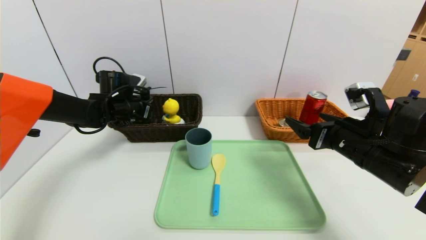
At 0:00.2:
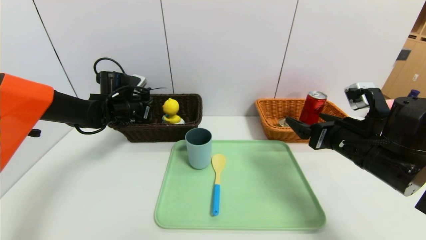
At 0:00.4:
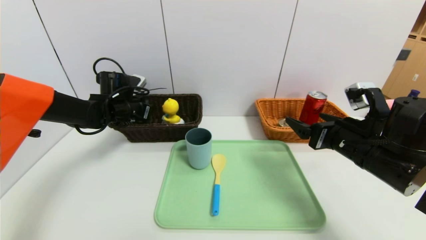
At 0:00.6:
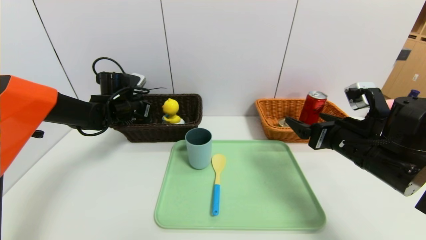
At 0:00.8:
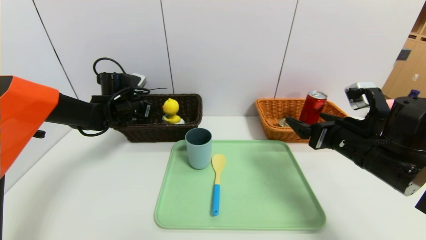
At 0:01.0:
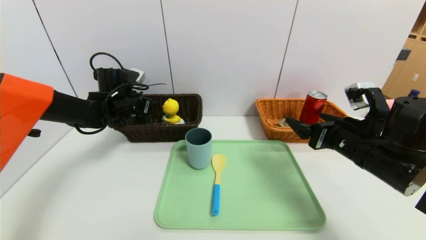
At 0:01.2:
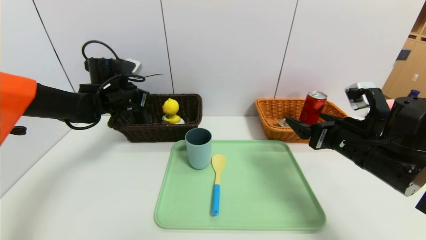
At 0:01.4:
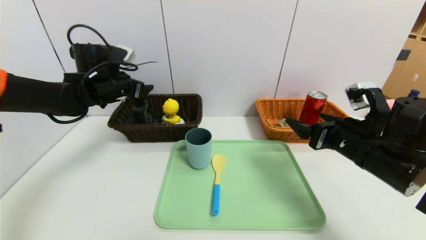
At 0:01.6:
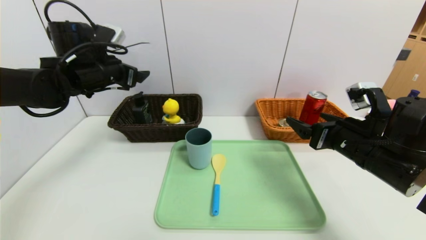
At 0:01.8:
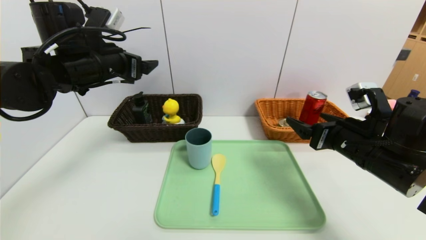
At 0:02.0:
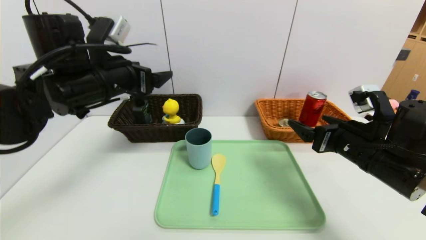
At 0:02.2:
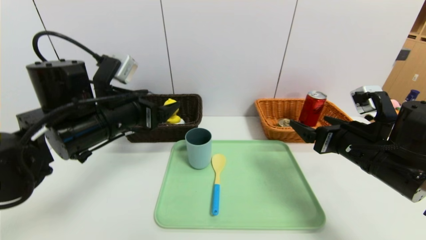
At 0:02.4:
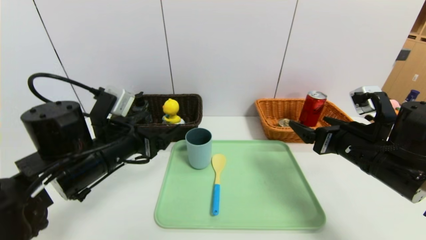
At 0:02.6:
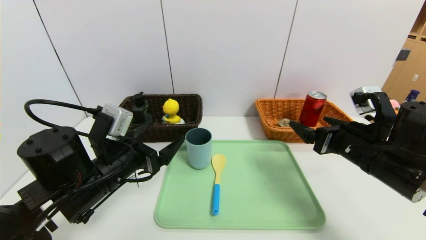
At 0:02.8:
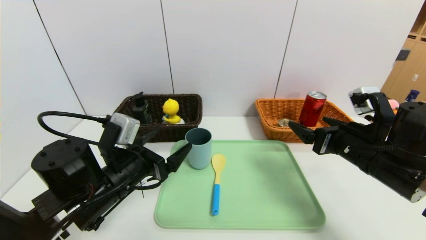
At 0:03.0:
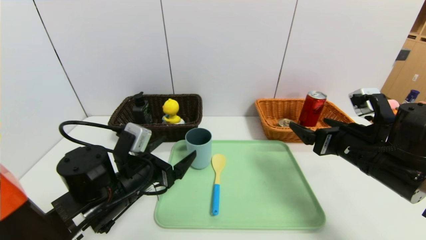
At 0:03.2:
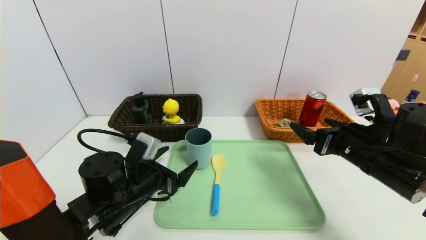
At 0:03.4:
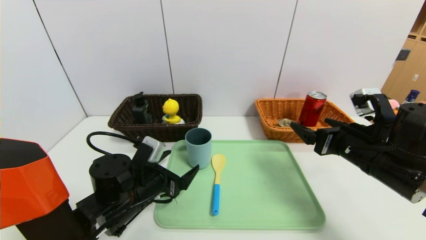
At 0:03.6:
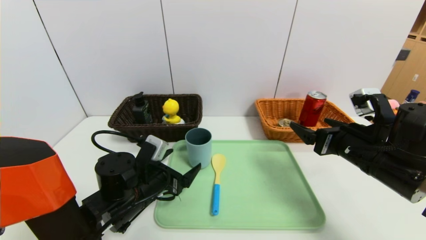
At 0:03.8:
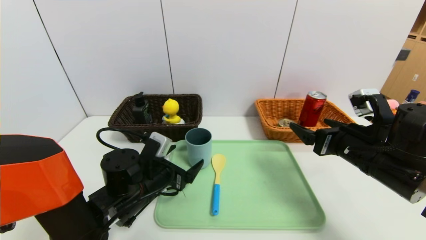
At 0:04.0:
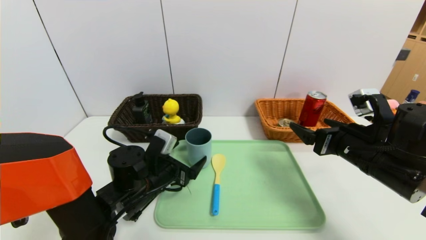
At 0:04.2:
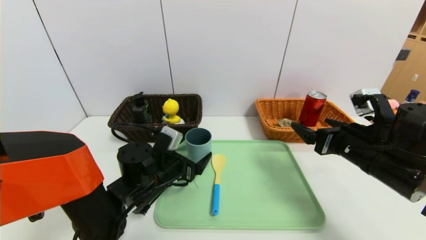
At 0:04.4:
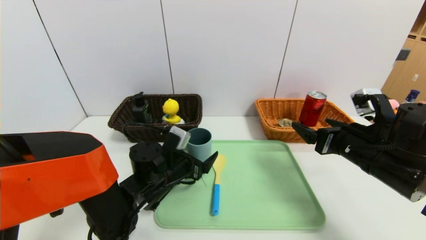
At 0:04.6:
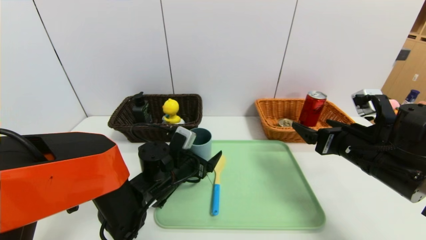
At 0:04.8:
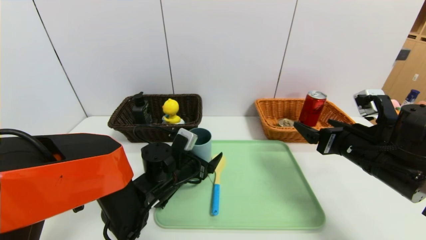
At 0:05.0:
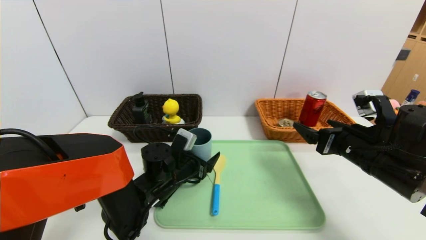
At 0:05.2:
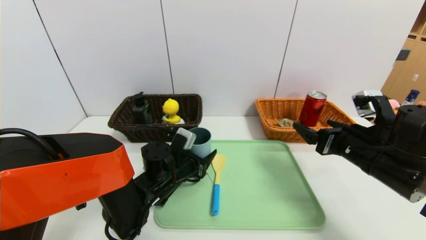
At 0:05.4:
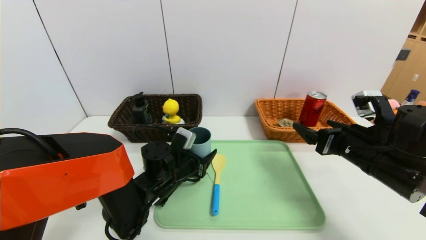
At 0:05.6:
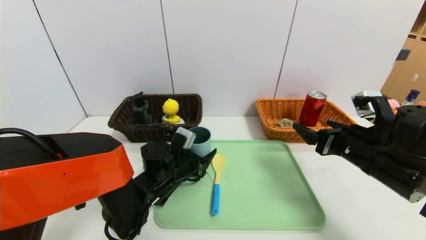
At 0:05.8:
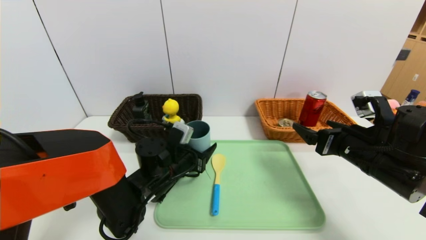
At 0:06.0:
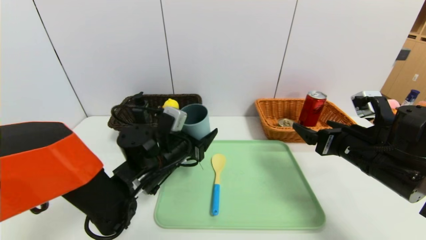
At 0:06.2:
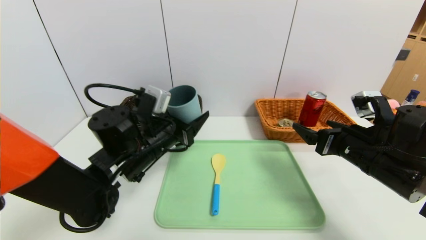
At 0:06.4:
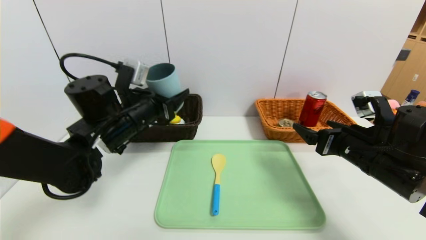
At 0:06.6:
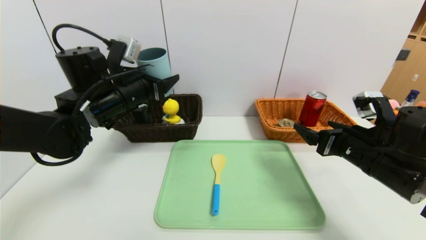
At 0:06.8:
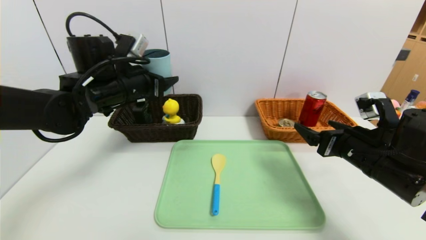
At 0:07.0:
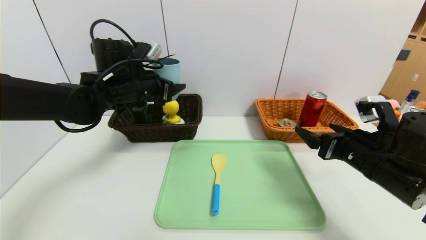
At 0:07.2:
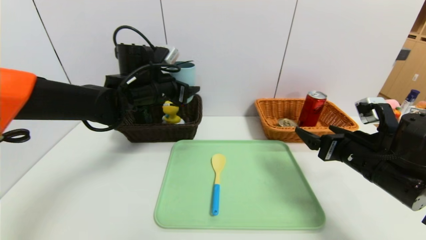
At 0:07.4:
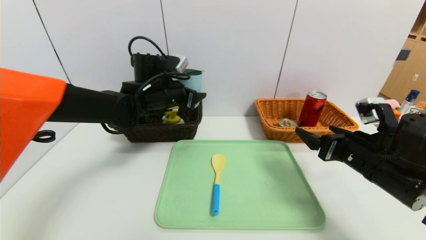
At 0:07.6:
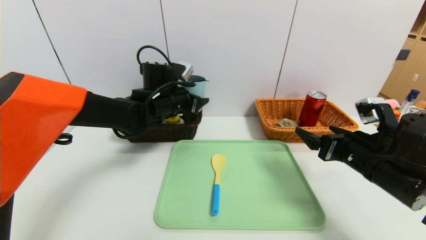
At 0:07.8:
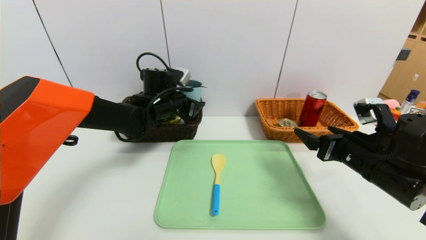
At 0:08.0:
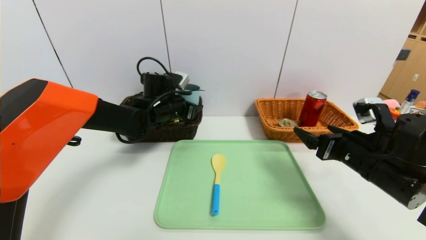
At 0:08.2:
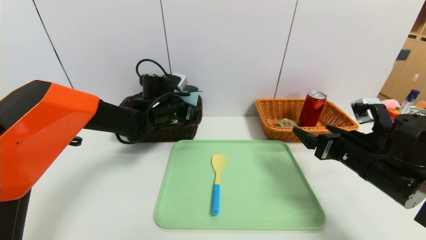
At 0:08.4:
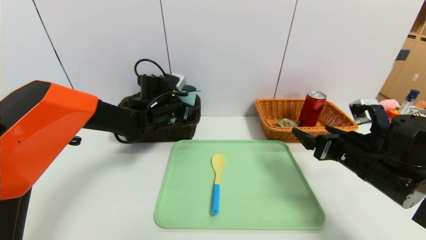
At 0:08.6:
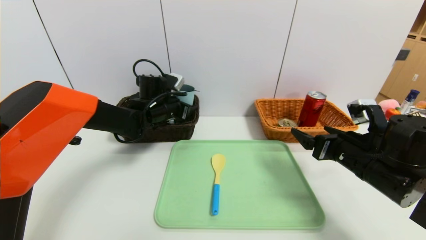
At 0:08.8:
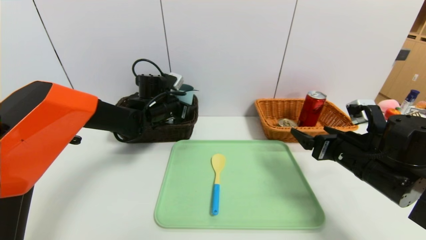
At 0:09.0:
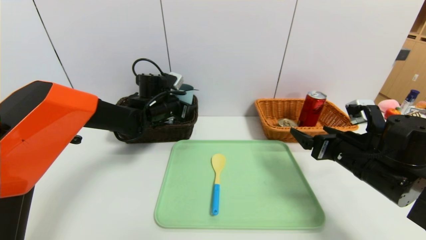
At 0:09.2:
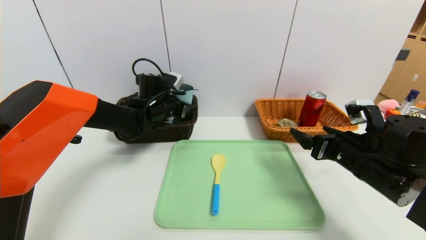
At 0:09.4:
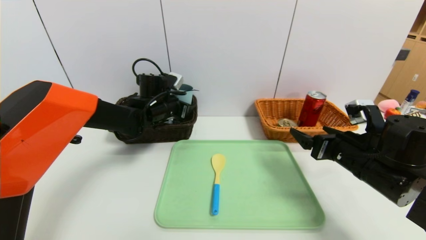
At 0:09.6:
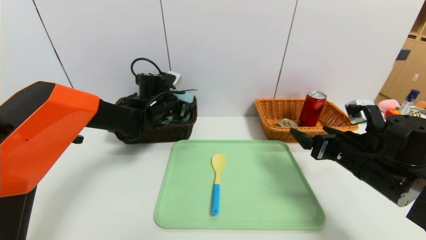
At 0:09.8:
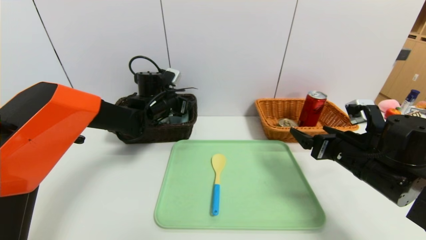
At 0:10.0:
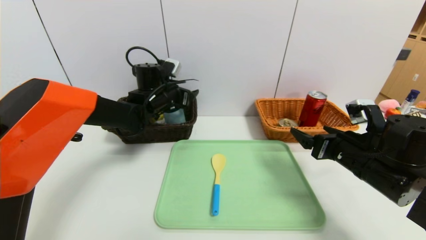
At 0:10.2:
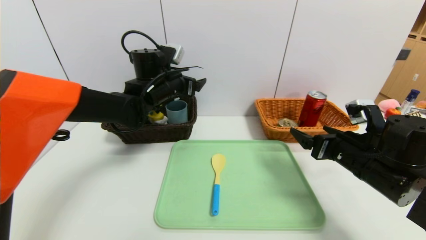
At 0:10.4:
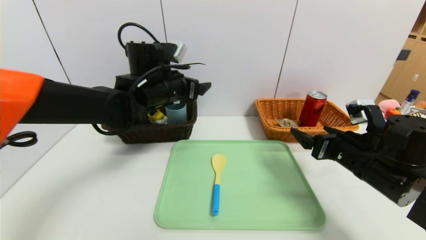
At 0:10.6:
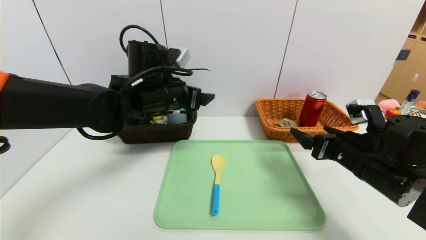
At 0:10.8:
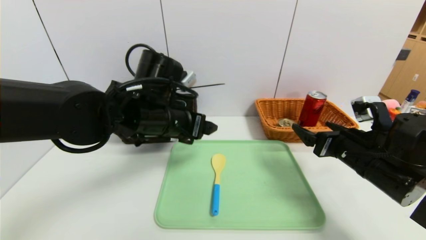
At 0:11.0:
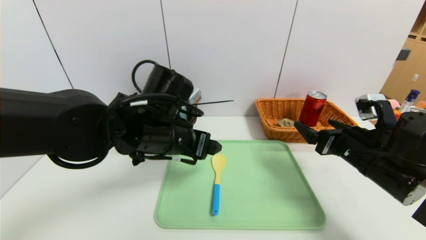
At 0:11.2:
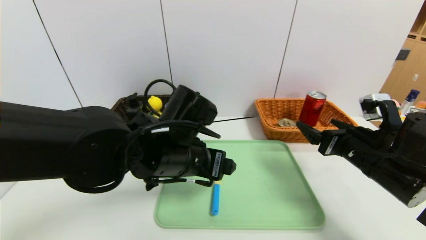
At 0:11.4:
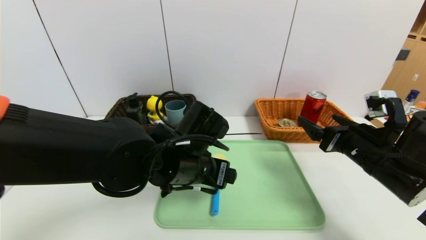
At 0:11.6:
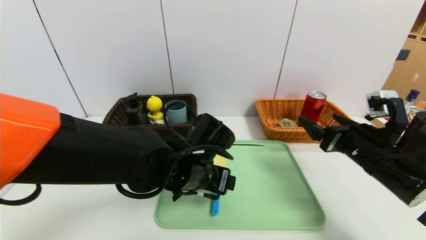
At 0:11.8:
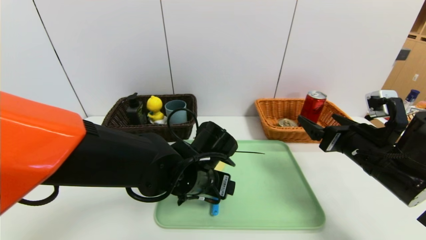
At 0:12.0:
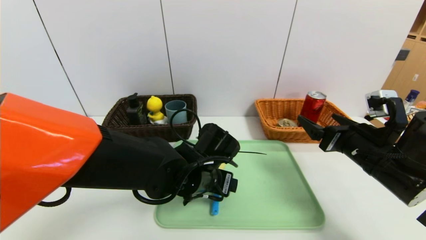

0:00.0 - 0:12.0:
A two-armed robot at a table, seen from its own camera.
Task of the whole recording: place the food in the right basket with the right gripper, and place the non food items in the left basket with the left gripper.
Step, 0:00.8 - 0:09.8: Grasp the blue cup and put it in the left basket.
0:00.0 - 0:01.6: The left gripper shifts roughly 15 cm upward and backward, and opens.
0:01.6 - 0:03.0: The left gripper is displaced downward, backward and to the right by about 25 cm.
0:03.0 - 0:04.4: The left gripper goes about 10 cm forward and to the right.
0:04.4 - 0:06.0: The grippers move only a little.
0:06.0 - 0:07.6: The left gripper heads forward and upward, covering roughly 15 cm.
0:07.6 - 0:09.0: The left gripper ends up roughly 5 cm from where it was.
0:09.0 - 0:10.4: The left gripper moves upward and backward, roughly 10 cm.
0:10.4 - 0:12.0: The left gripper goes some 20 cm downward, backward and to the right.

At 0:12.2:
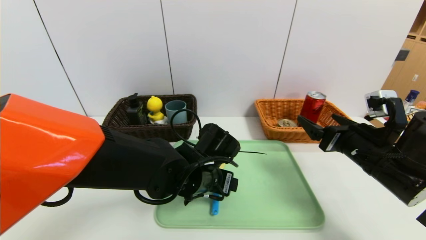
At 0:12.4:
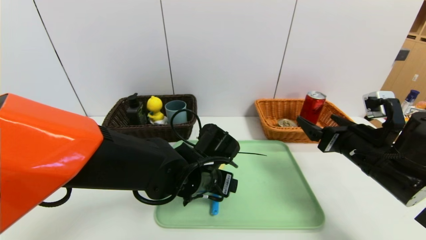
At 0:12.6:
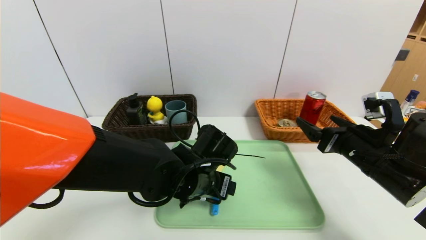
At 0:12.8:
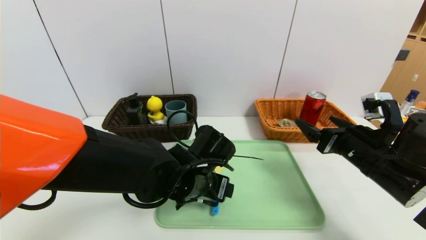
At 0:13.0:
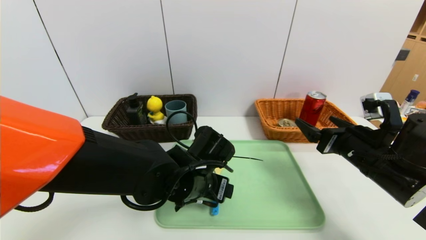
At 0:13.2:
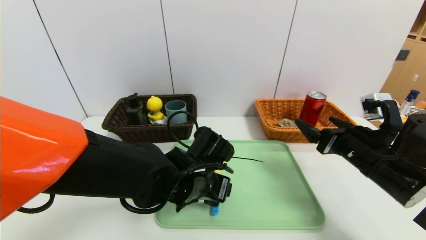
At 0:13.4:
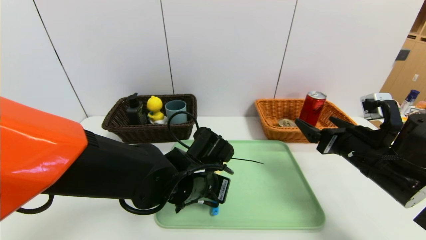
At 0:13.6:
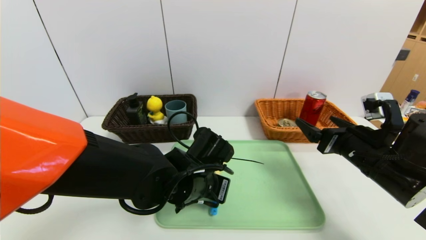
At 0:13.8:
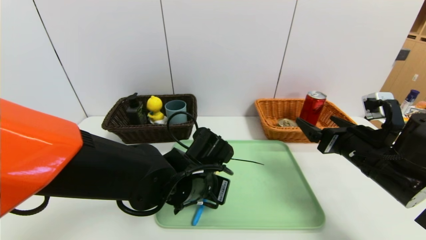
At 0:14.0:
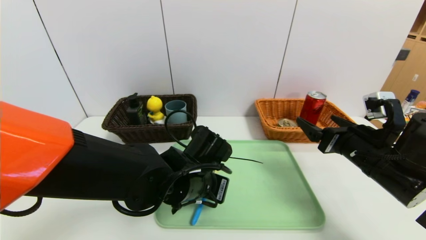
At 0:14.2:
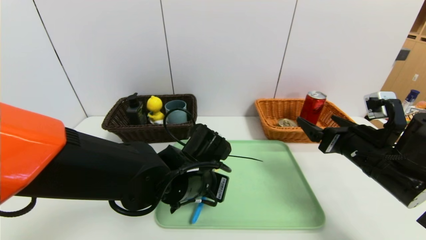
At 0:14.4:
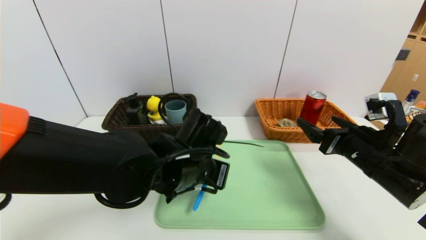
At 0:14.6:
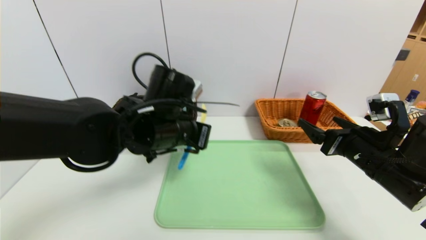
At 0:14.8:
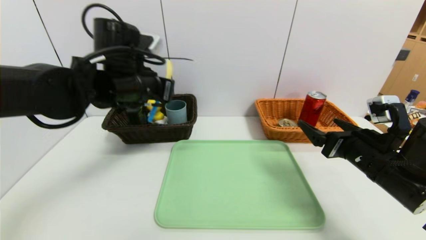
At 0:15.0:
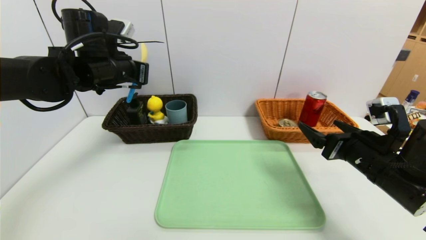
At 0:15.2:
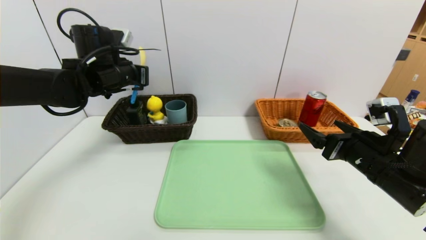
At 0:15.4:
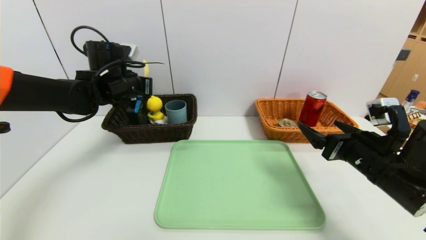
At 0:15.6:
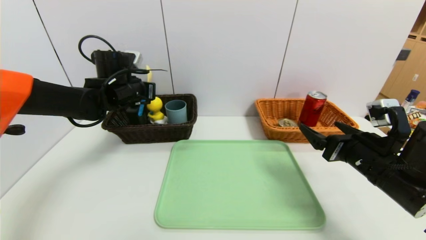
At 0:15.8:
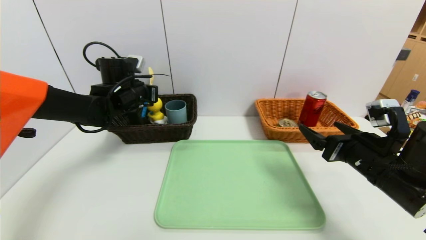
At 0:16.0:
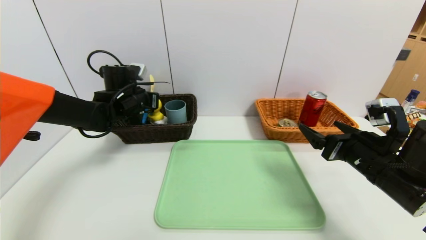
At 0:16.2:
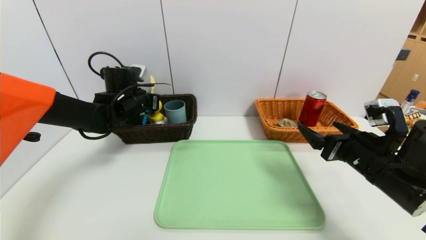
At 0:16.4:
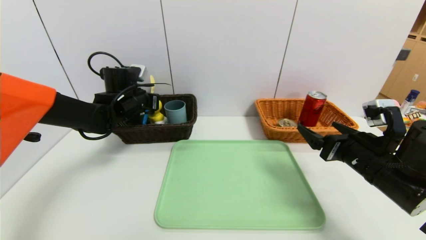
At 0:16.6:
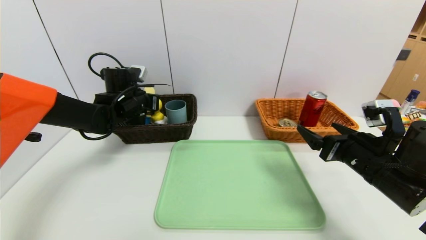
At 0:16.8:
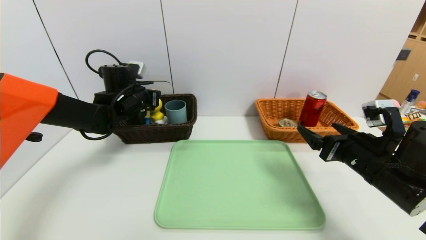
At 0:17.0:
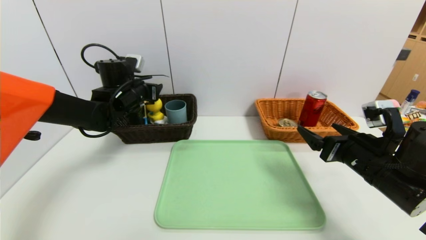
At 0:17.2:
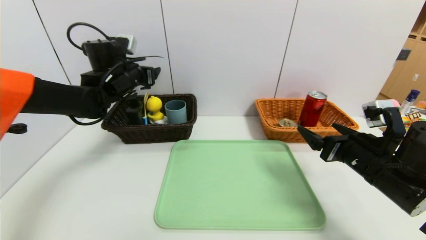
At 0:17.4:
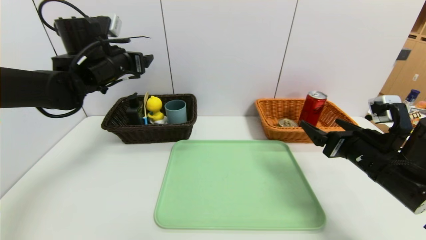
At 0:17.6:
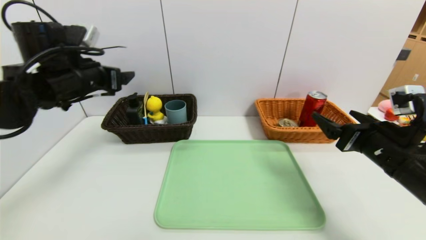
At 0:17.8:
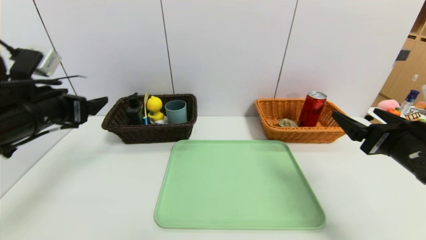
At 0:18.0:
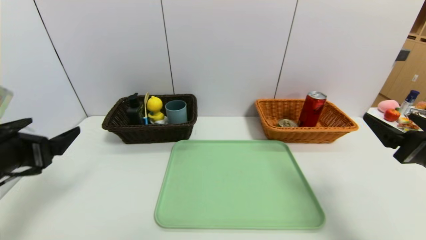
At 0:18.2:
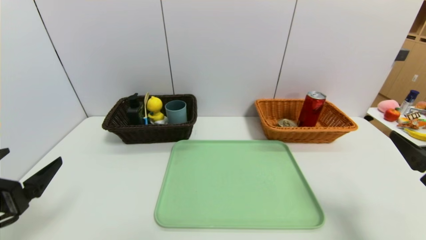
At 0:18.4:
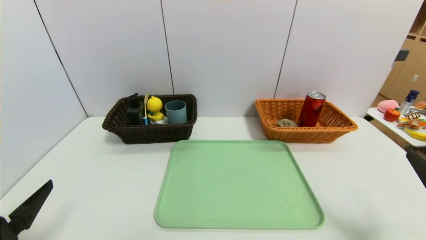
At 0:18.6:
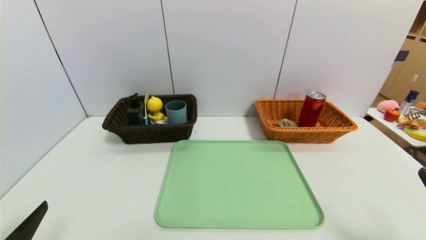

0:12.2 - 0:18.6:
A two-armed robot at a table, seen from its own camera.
Task of the whole recording: place the food in the right basket with the right gripper, and place the non food items in the left basket with the left gripper.
Step, 0:12.2 - 0:17.0: Grasp the spoon and put it in the left basket.
0:12.2 - 0:13.8: The left gripper closes its fingers.
0:13.8 - 0:15.4: The left gripper is displaced to the left, forward and upward by approximately 25 cm.
0:15.4 - 0:17.0: The left gripper opens its fingers.
0:17.0 - 0:18.6: The right gripper heads backward and to the right, covering some 20 cm, while the left gripper moves backward, about 40 cm.
